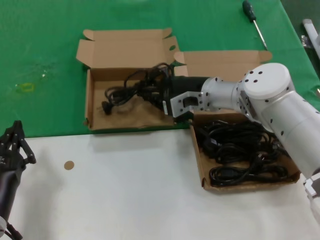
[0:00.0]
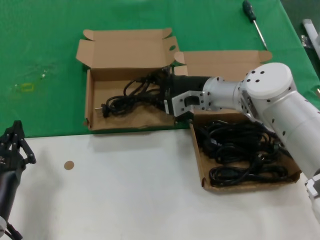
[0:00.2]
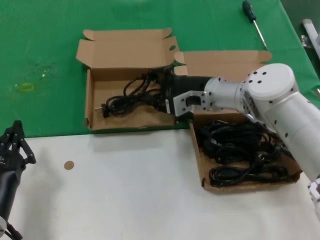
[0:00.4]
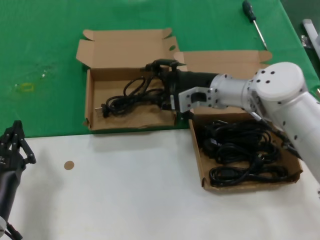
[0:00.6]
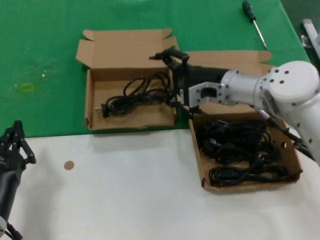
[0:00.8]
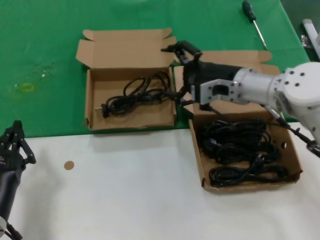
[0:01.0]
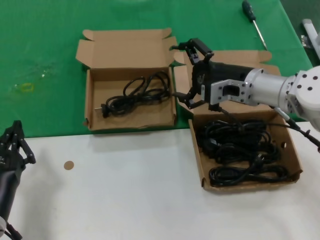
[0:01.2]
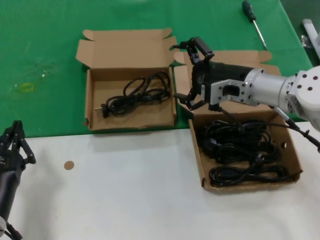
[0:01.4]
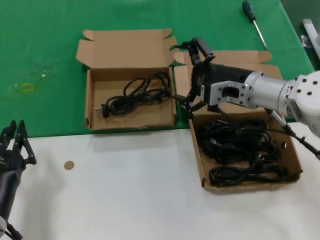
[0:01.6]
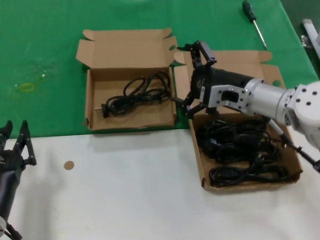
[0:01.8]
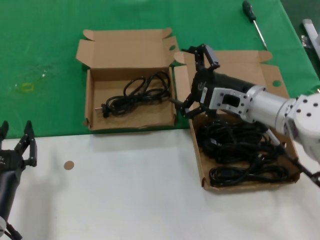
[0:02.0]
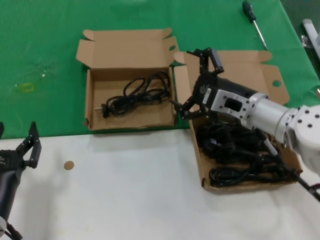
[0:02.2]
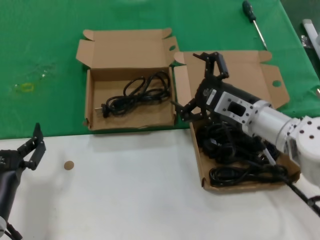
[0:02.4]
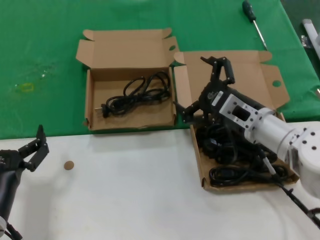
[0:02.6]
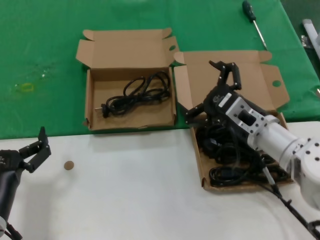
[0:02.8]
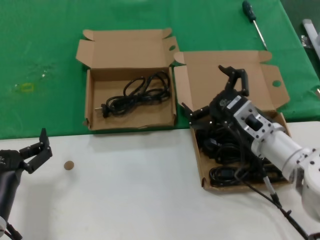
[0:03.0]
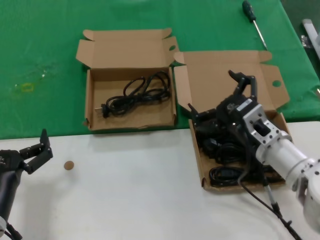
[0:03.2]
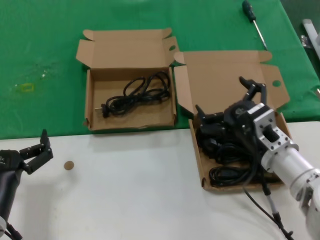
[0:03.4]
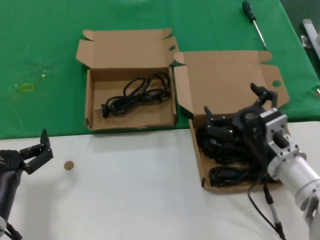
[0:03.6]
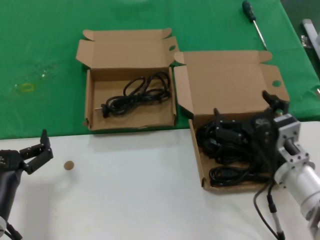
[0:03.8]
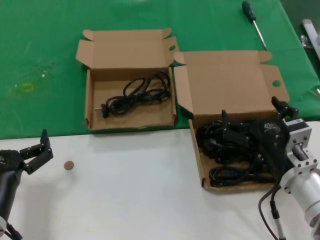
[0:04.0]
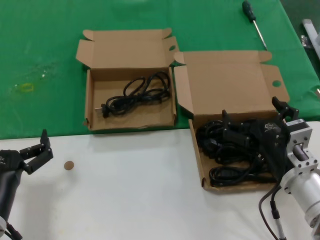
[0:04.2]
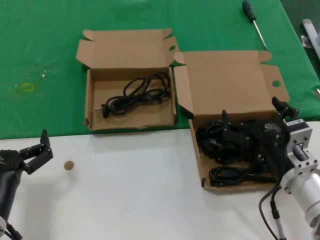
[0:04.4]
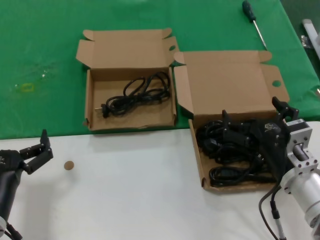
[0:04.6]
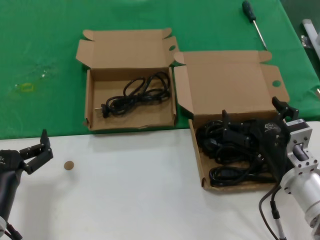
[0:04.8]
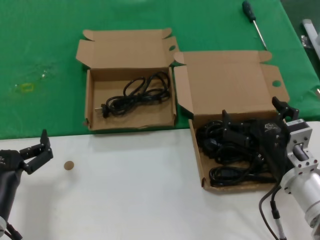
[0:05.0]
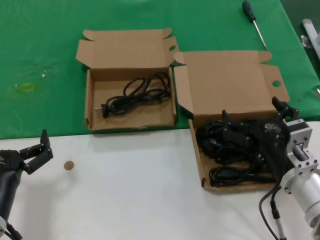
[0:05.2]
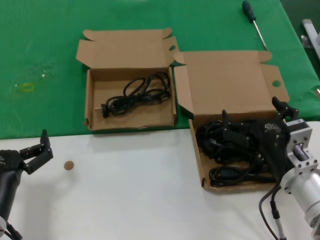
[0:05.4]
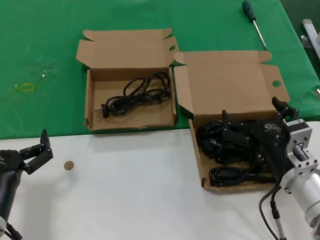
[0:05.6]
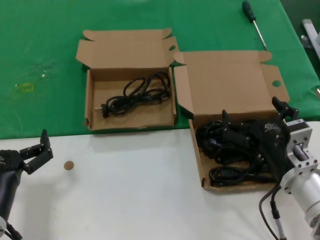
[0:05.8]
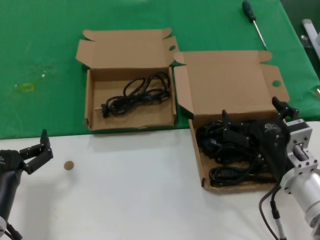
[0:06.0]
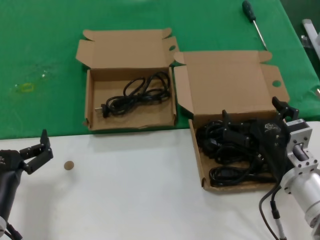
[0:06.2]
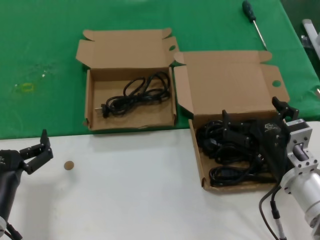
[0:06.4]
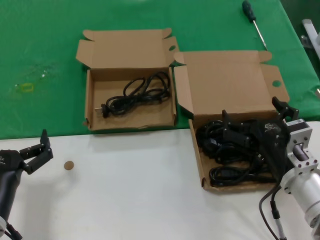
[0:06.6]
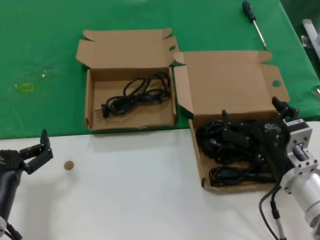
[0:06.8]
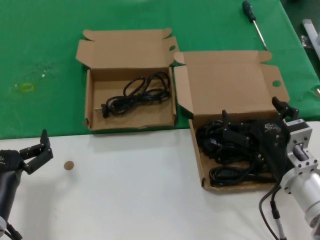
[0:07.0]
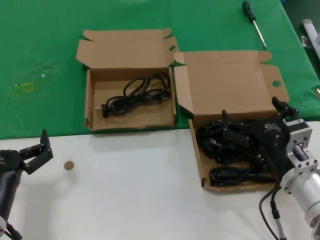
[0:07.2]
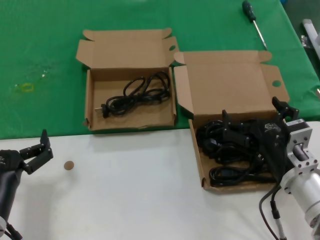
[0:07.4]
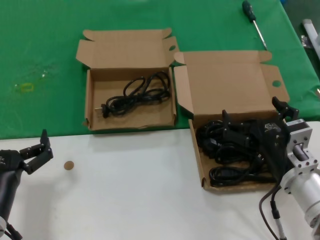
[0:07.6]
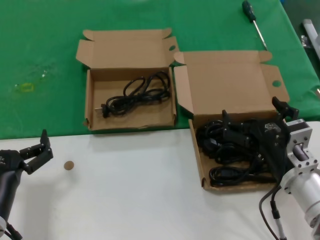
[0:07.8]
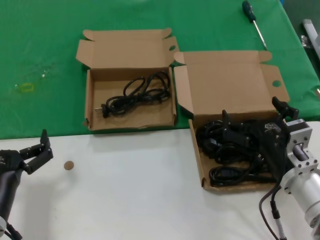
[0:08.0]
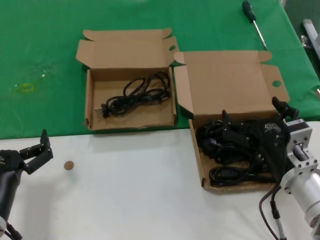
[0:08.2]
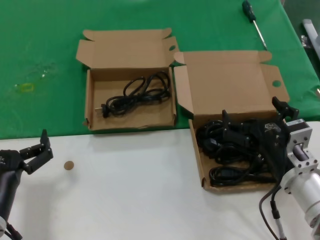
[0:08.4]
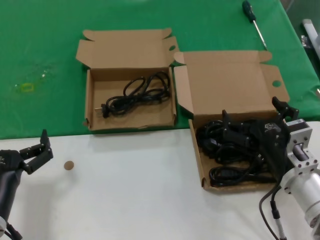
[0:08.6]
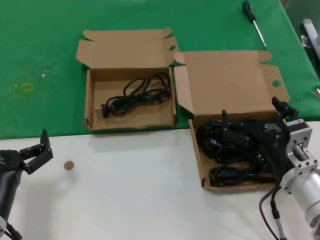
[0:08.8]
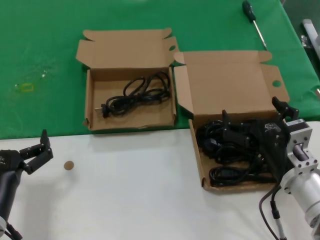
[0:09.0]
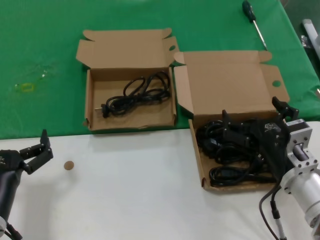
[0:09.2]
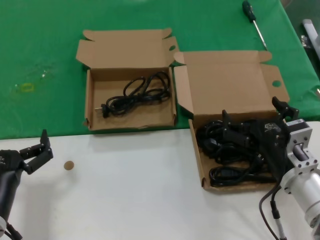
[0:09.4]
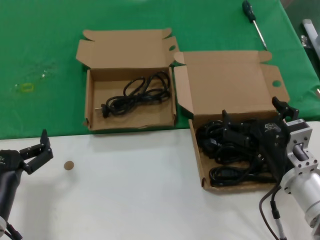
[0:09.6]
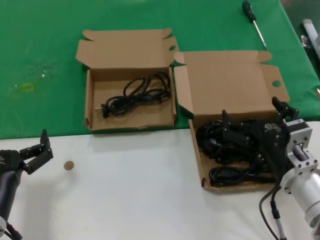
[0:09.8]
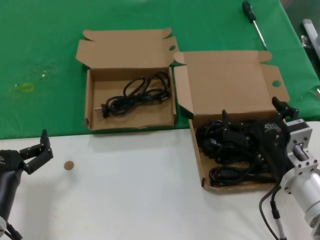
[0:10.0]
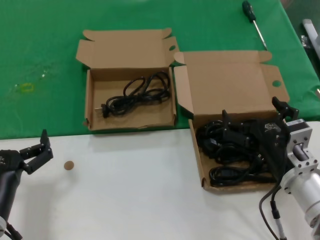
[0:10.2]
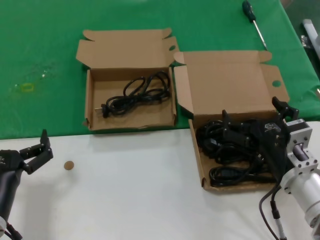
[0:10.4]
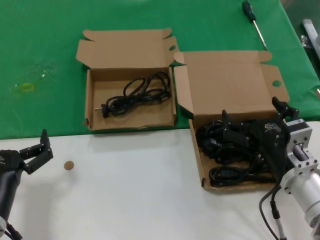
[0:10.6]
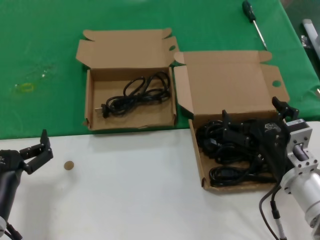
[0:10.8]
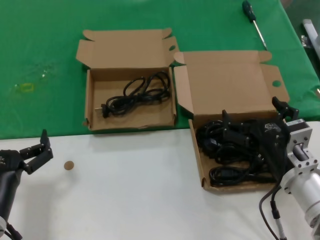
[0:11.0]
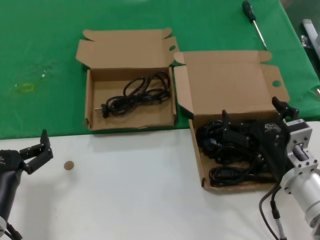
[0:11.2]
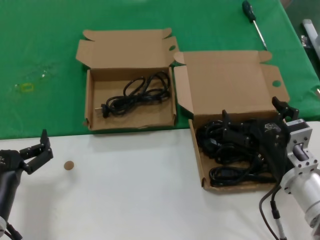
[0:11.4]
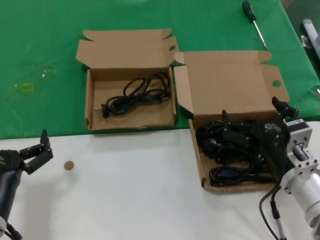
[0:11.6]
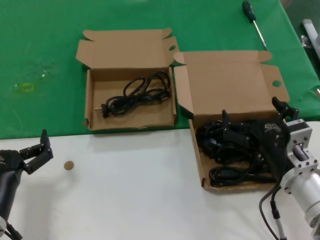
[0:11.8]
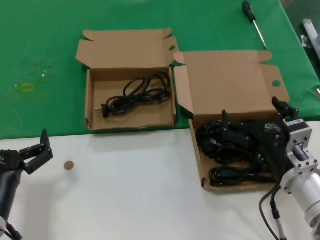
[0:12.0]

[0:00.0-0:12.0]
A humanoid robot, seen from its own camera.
Task of the whole recording: take the parts from the box containing them and put them into an empty box.
0:00.0 to 0:01.6: The right hand travels to the right and backward by approximately 10 cm.
0:01.6 to 0:03.0: The right hand shifts roughly 10 cm backward and downward.
0:03.0 to 0:04.4: The right hand heads backward, covering about 10 cm.
0:04.4 to 0:12.0: Neither hand changes place.
